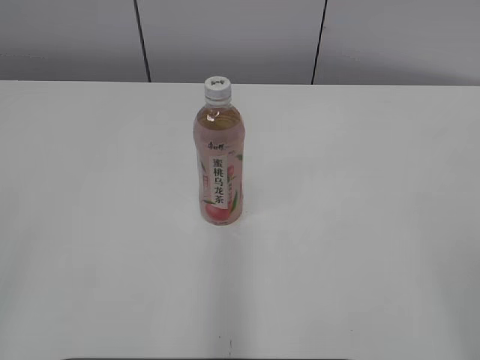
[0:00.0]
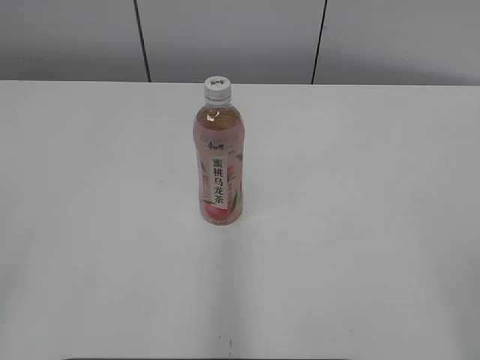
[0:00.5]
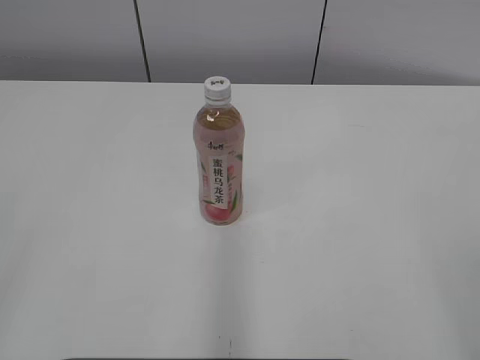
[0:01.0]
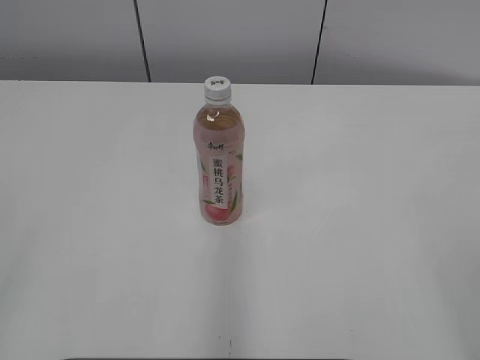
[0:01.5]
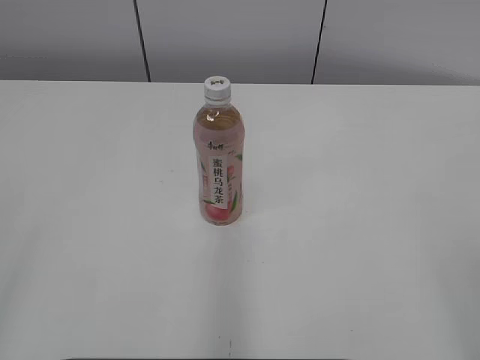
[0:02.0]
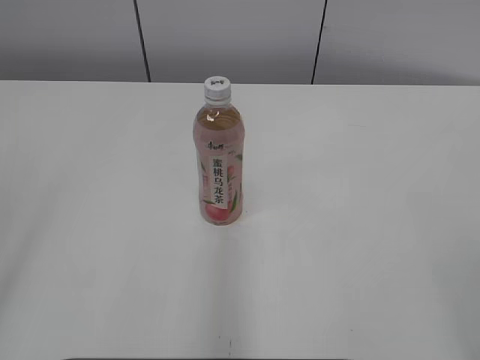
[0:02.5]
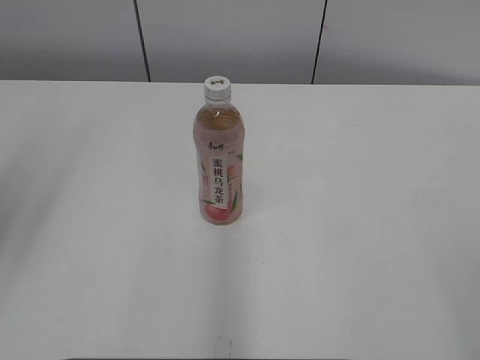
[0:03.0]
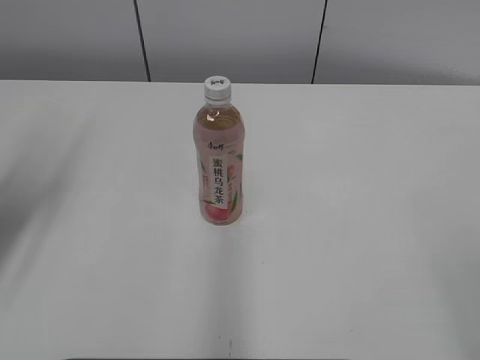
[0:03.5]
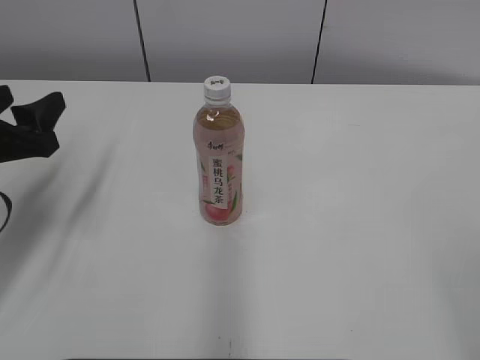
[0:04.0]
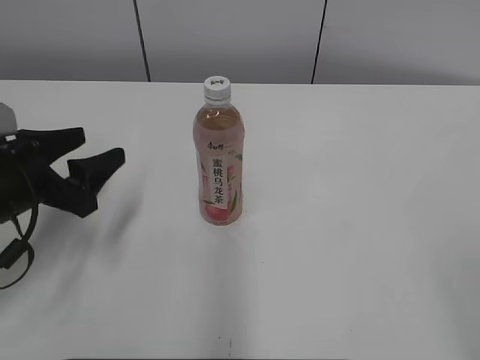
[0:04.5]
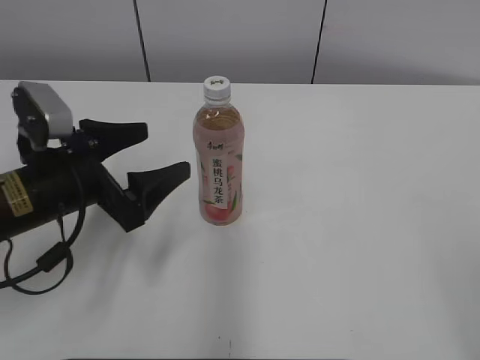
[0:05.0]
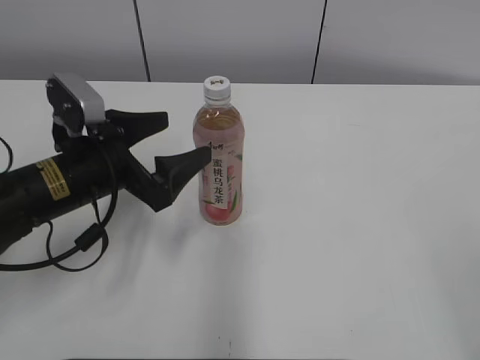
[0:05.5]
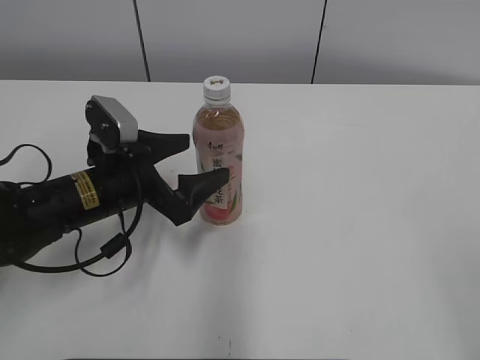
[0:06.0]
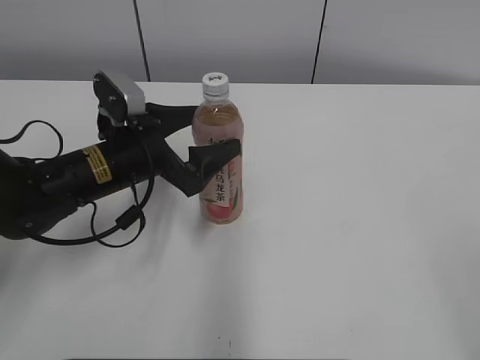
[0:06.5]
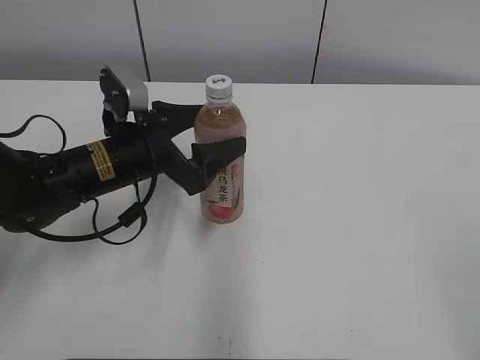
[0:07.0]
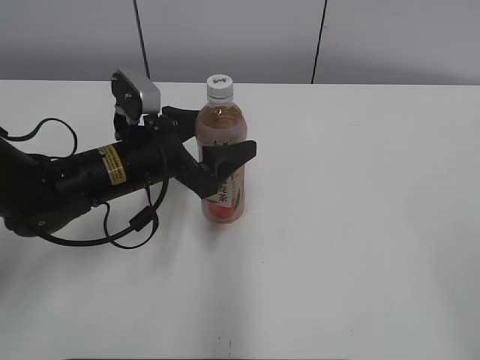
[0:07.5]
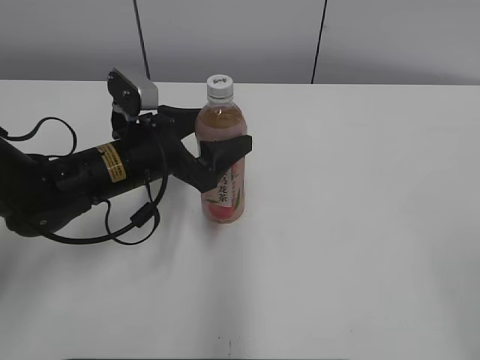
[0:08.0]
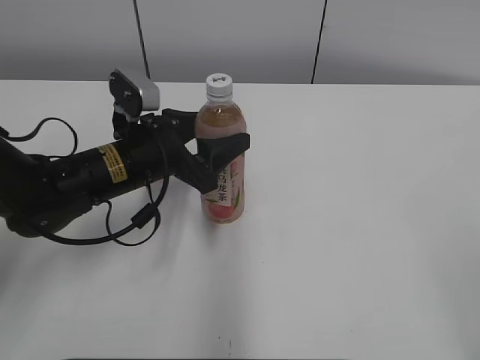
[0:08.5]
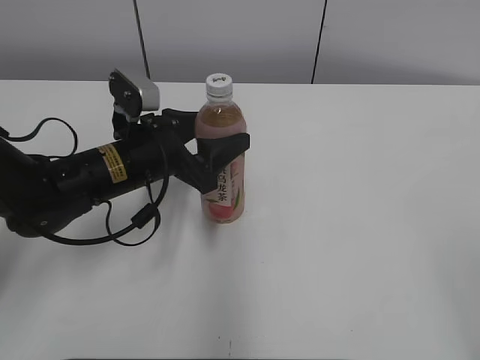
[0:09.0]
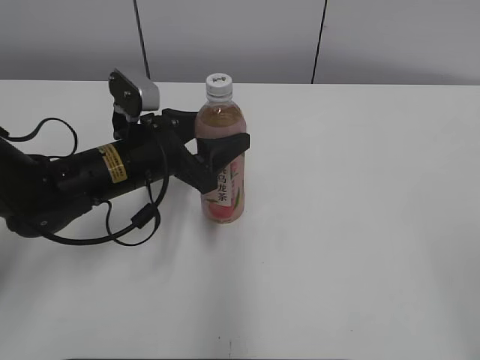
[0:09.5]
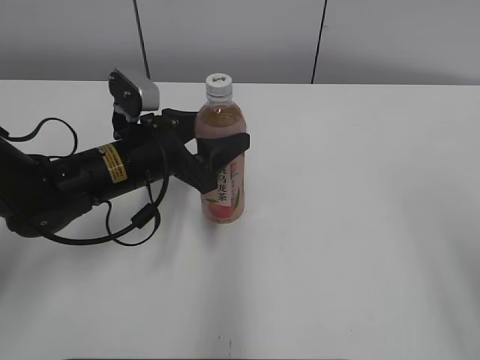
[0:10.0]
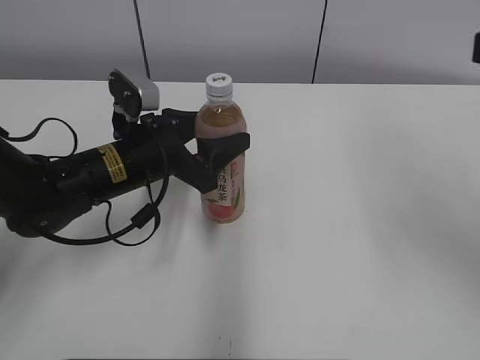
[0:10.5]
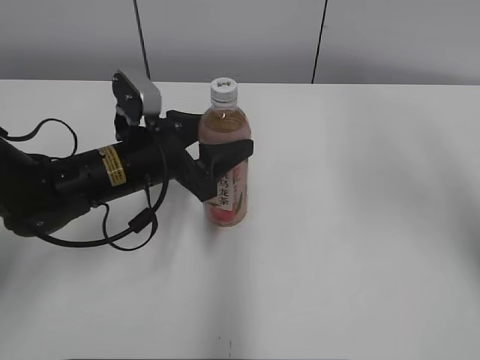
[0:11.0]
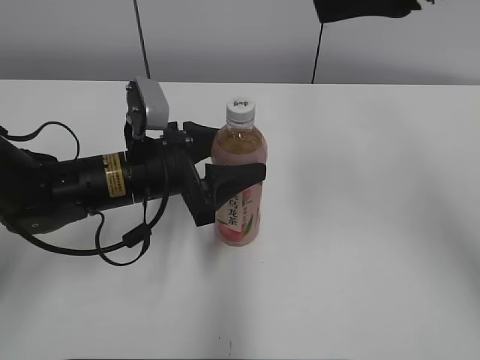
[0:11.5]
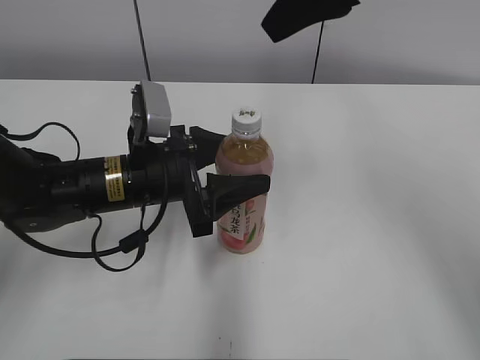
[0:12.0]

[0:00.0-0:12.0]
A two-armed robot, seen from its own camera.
Step, 0:00.0 to 0:08.5: Grab the Peach Oolong Tea with the left hand.
0:02.0 to 0:04.0: The left gripper travels forward and downward by about 30 cm.
0:04.0 to 0:06.0: The left gripper shifts about 15 cm to the right and downward, and opens its fingers.
0:06.0 to 0:08.0: The grippers make only small movements.
0:08.0 to 0:10.0: The right gripper shifts by some 5 cm.
0:10.0 to 0:12.0: The right gripper is displaced forward and to the left by approximately 35 cm.

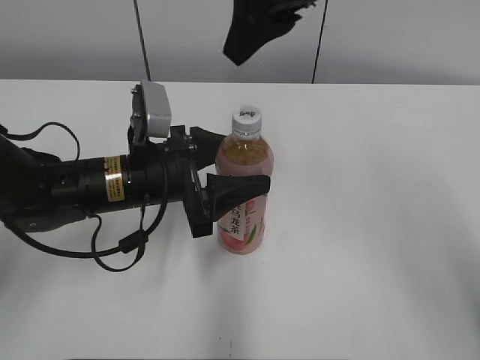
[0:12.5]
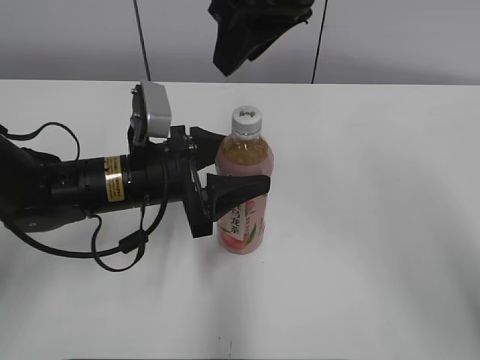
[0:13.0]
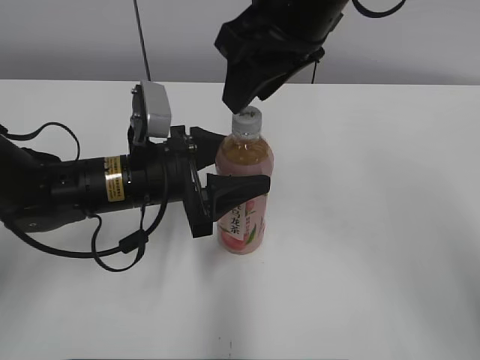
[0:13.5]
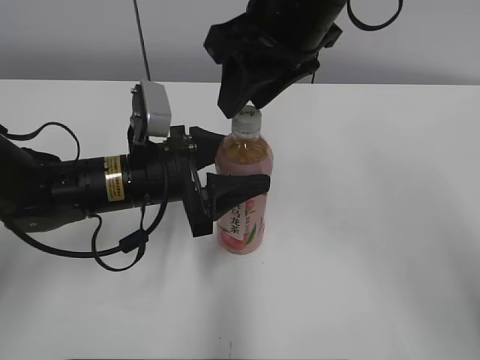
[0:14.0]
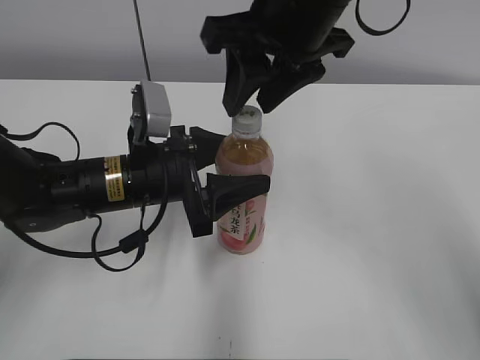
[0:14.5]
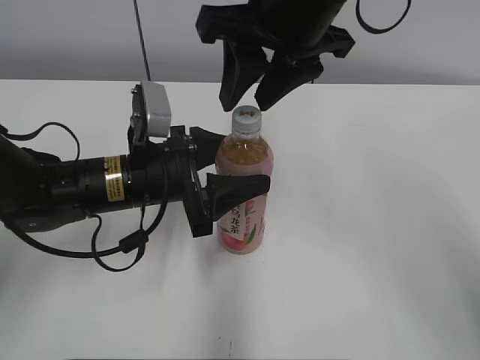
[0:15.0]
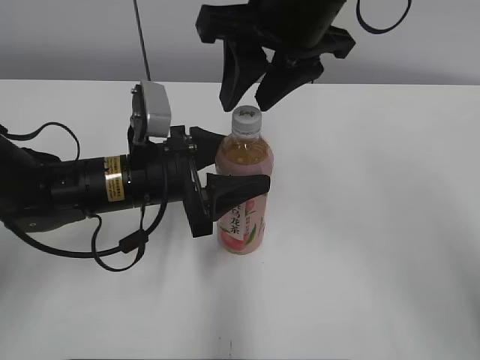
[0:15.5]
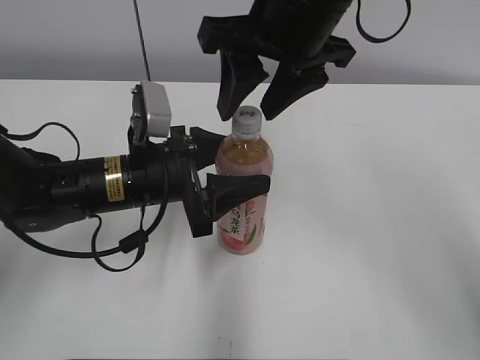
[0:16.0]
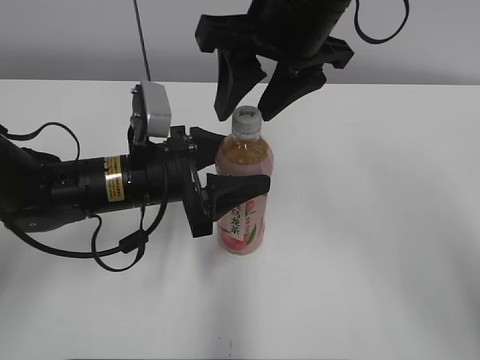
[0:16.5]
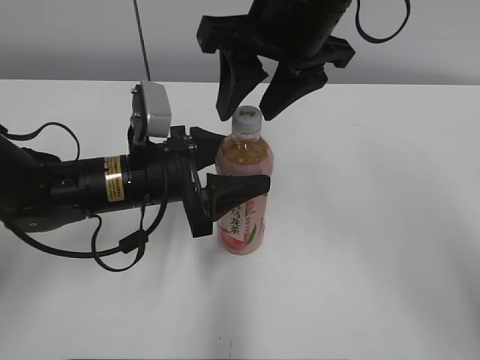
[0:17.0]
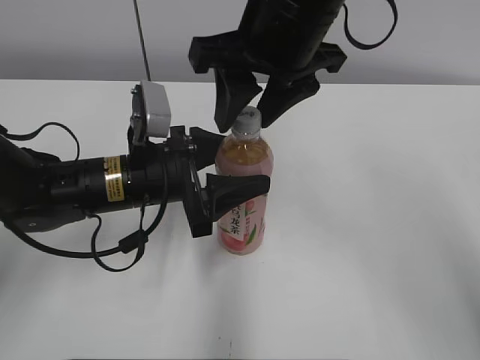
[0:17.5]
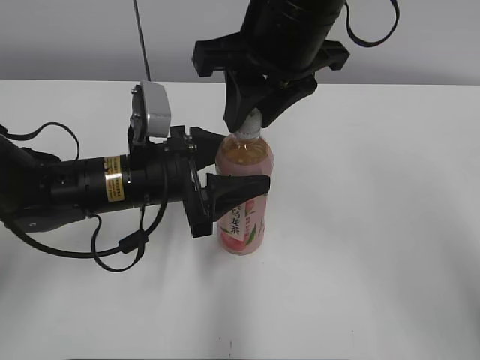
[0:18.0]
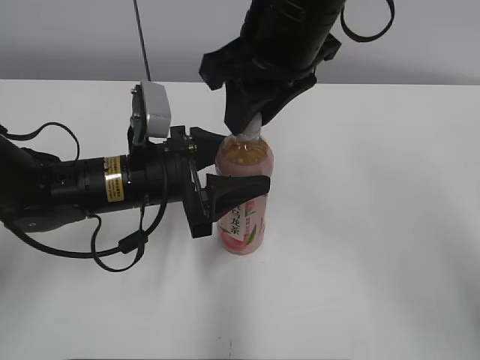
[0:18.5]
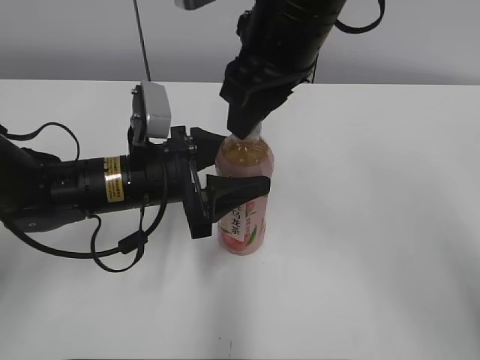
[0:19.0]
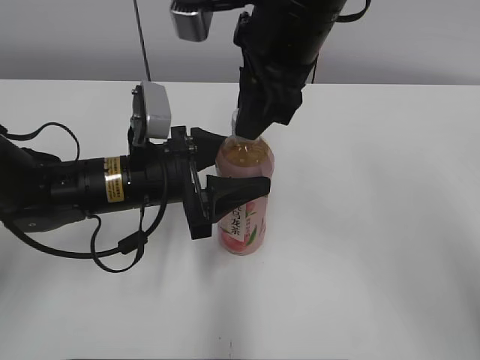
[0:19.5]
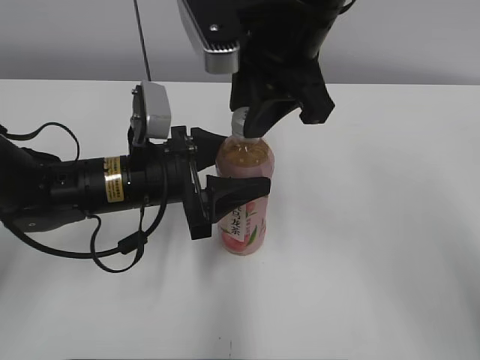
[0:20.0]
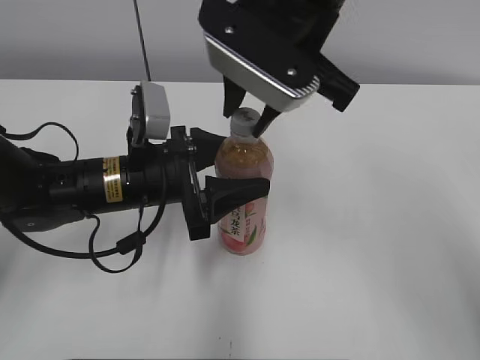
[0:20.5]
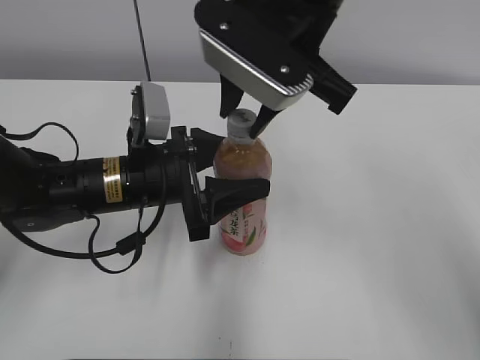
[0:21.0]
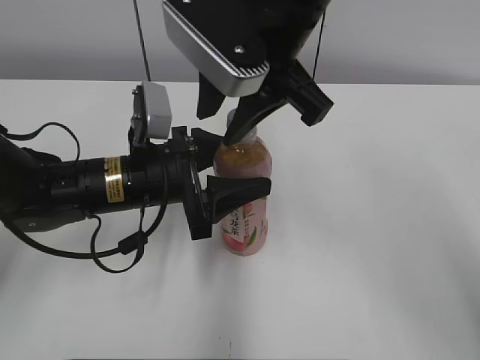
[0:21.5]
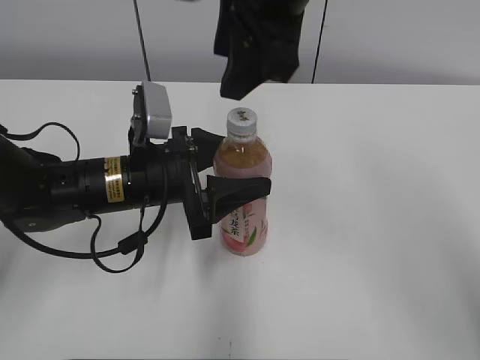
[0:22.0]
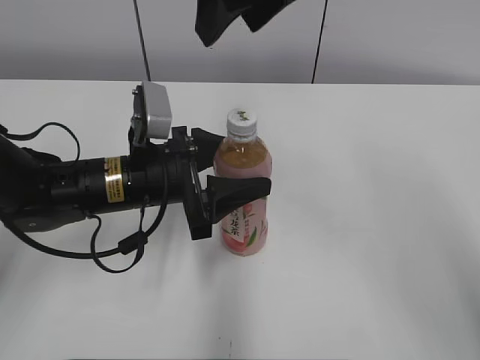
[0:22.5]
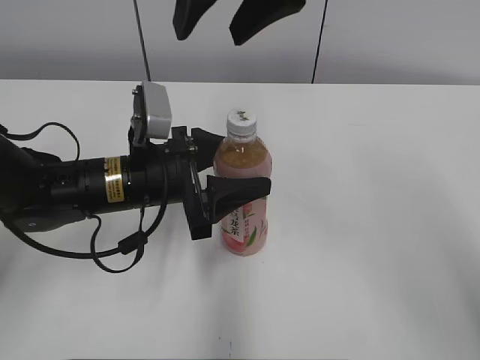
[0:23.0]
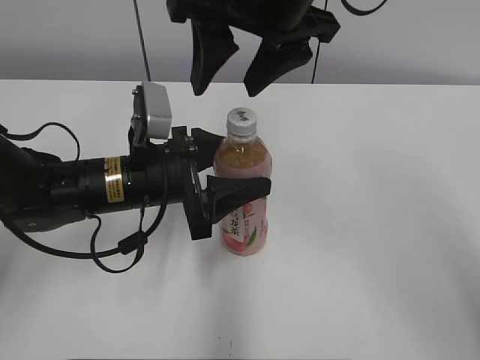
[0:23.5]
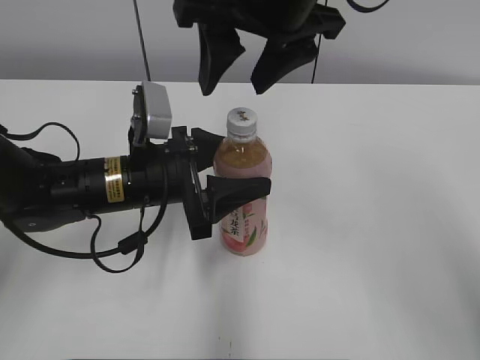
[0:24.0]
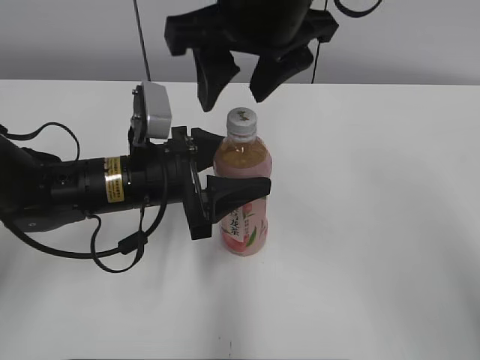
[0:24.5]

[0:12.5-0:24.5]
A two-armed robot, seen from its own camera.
0:14.5 to 0:16.5: The grippers move only a little.
0:16.5 to 0:18.5: The right gripper closes its fingers.
0:20.5 to 0:22.5: The right gripper heads upward, covering approximately 5 cm, and opens its fingers.
0:22.5 to 0:24.5: The right gripper changes place by some 5 cm.

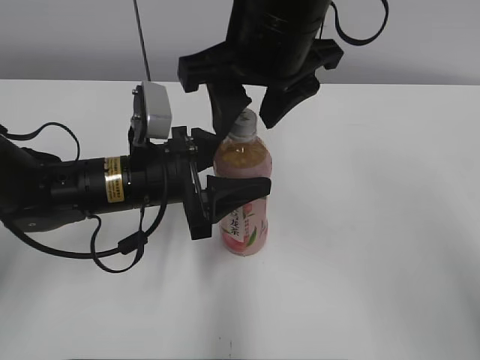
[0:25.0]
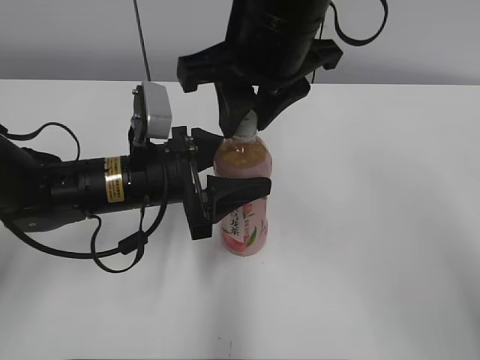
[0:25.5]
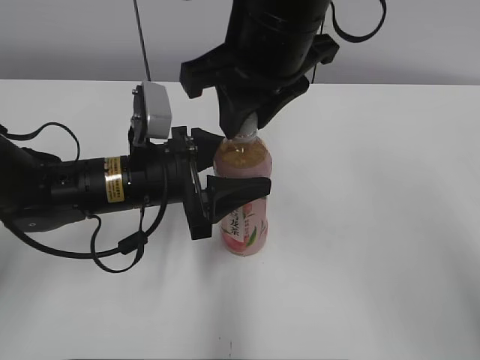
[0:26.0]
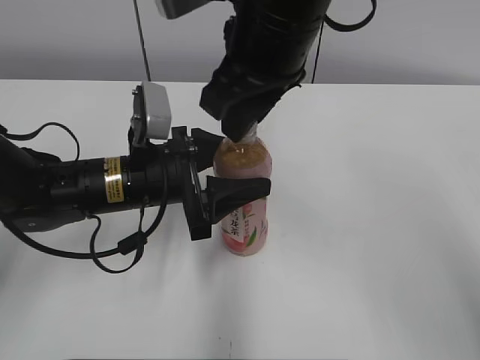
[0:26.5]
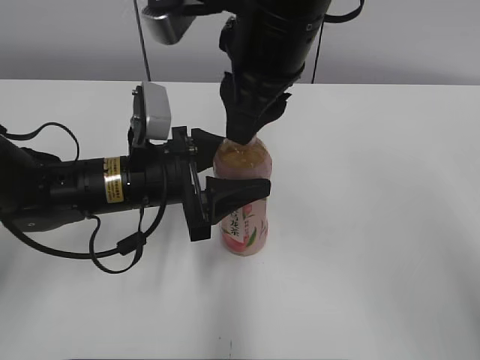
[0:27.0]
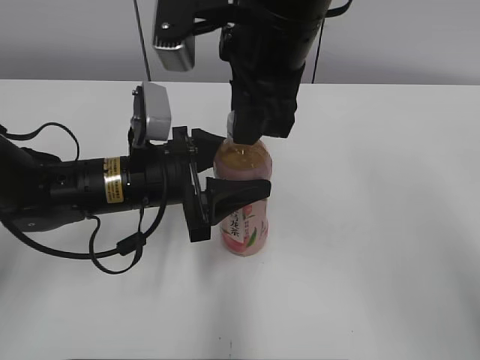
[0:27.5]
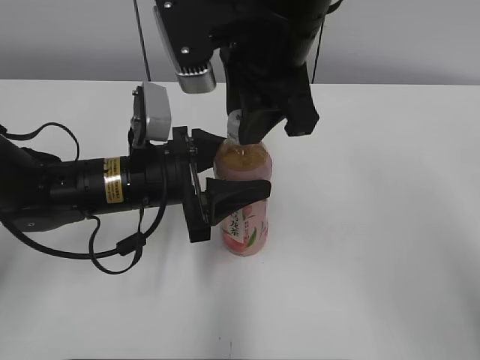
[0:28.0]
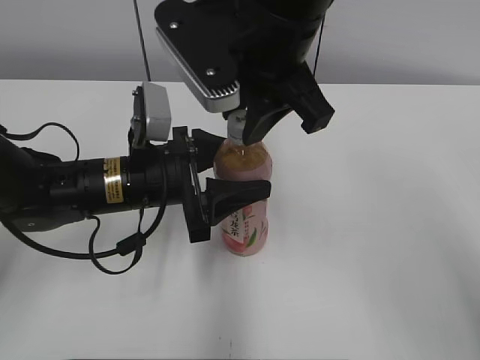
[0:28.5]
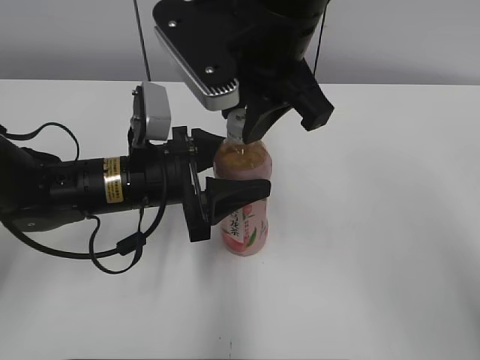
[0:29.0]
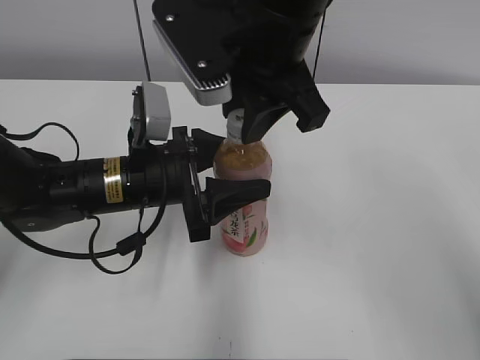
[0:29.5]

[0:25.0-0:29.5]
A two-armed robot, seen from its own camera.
0:25.0 to 0:27.0: The right gripper closes.
